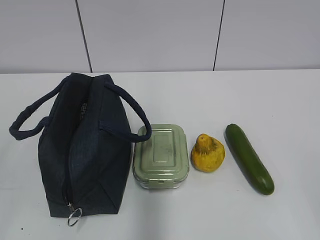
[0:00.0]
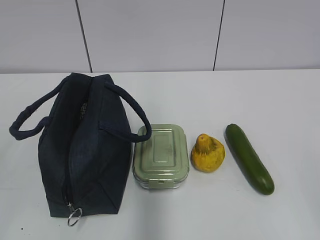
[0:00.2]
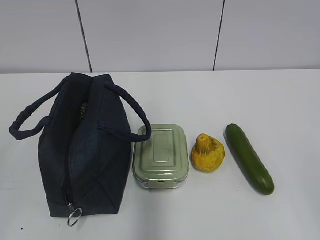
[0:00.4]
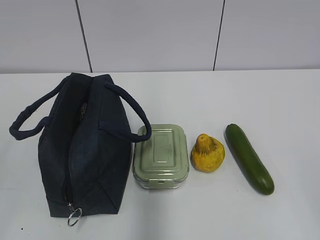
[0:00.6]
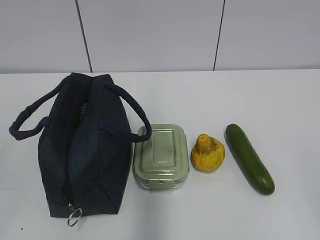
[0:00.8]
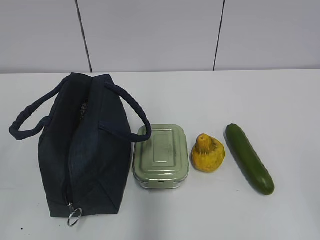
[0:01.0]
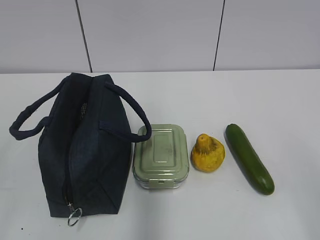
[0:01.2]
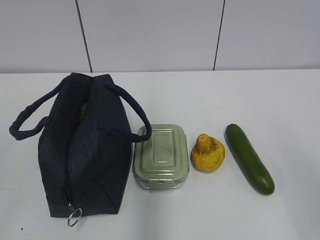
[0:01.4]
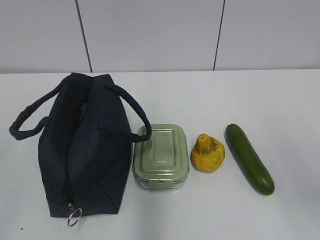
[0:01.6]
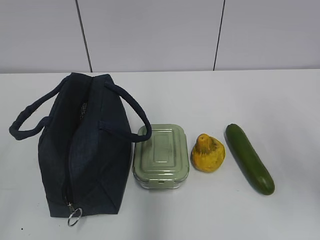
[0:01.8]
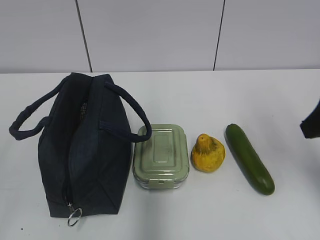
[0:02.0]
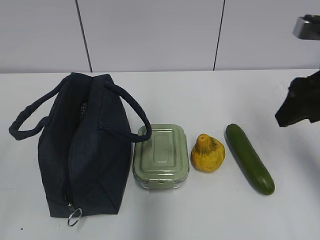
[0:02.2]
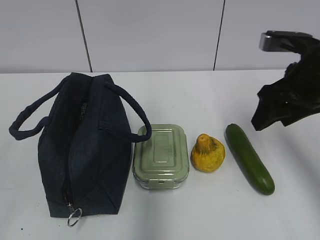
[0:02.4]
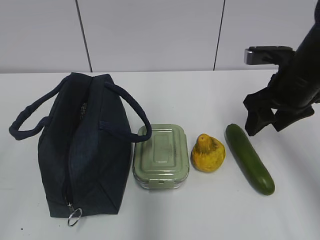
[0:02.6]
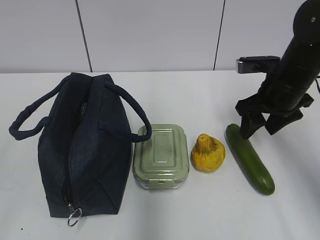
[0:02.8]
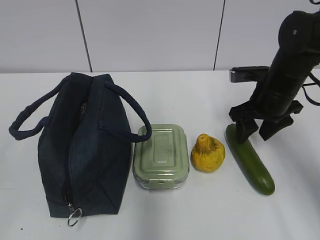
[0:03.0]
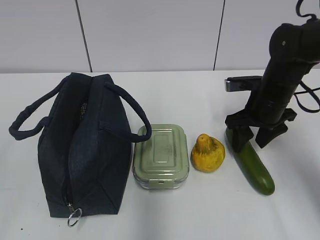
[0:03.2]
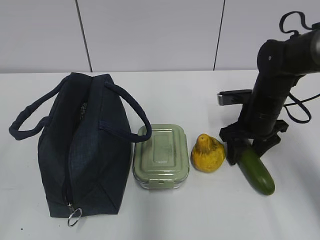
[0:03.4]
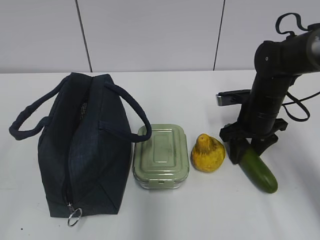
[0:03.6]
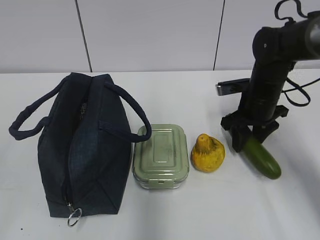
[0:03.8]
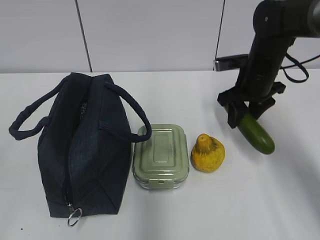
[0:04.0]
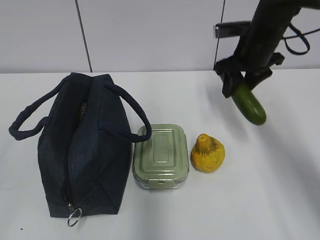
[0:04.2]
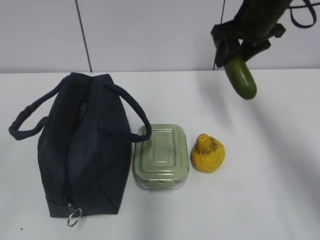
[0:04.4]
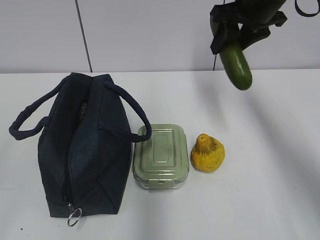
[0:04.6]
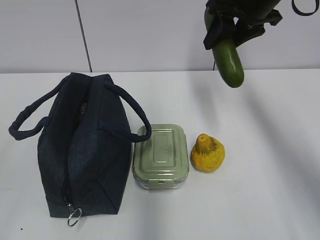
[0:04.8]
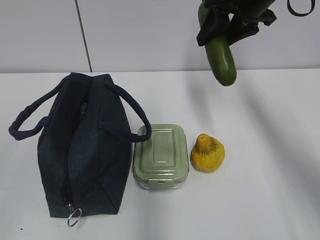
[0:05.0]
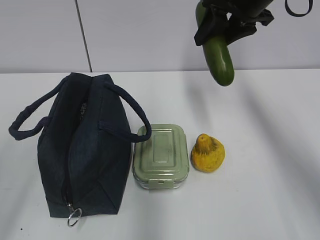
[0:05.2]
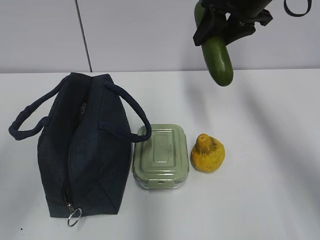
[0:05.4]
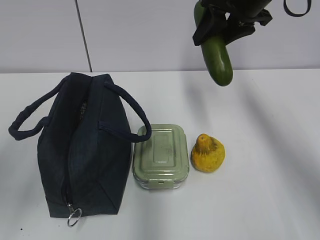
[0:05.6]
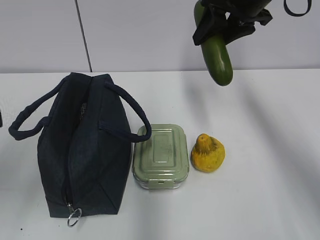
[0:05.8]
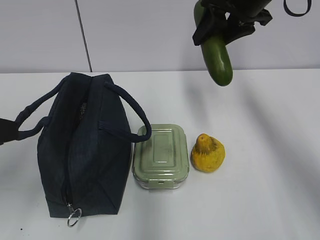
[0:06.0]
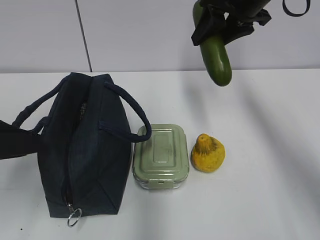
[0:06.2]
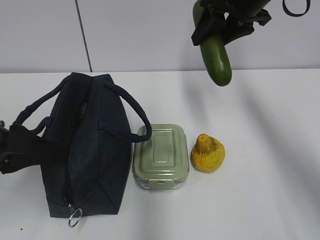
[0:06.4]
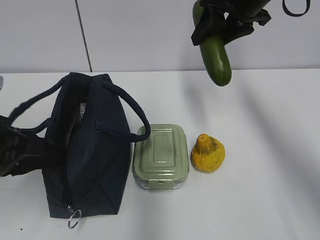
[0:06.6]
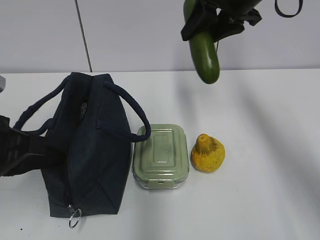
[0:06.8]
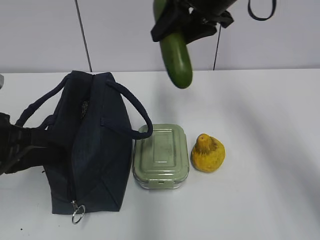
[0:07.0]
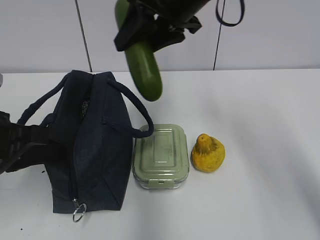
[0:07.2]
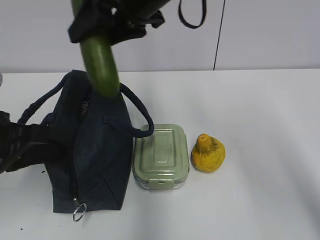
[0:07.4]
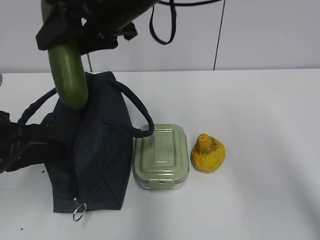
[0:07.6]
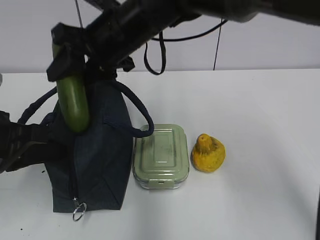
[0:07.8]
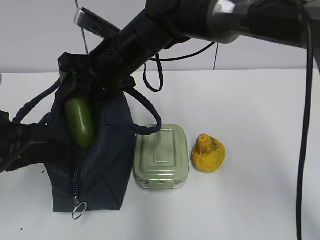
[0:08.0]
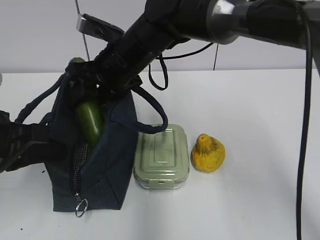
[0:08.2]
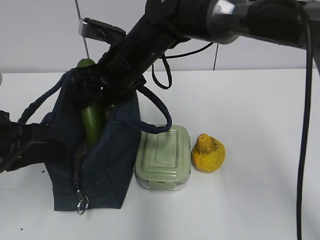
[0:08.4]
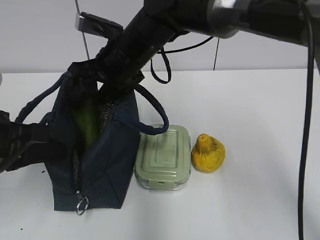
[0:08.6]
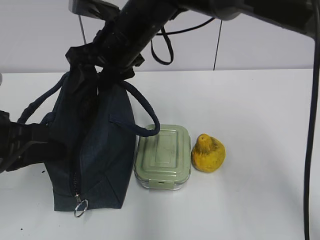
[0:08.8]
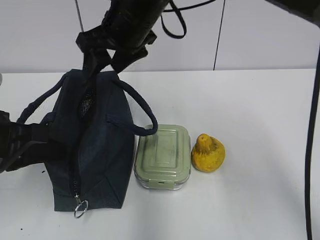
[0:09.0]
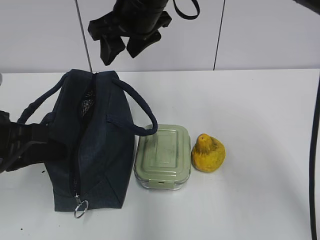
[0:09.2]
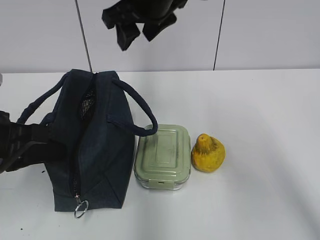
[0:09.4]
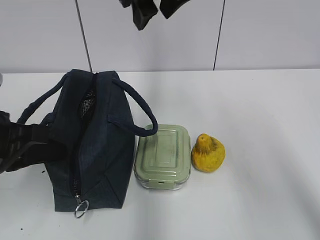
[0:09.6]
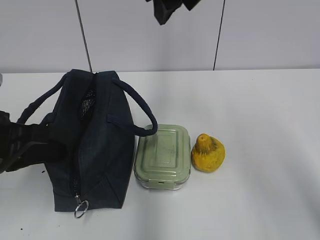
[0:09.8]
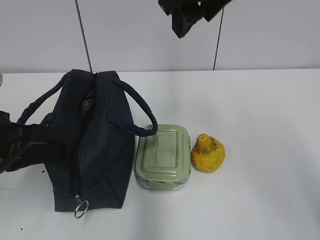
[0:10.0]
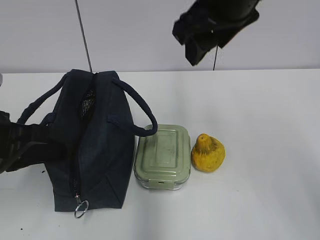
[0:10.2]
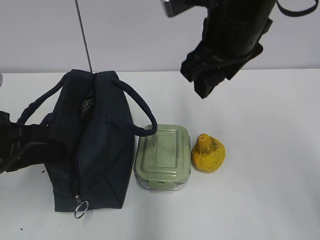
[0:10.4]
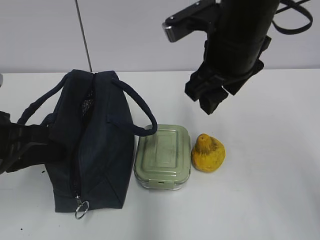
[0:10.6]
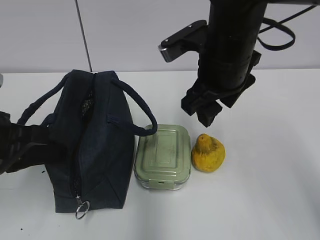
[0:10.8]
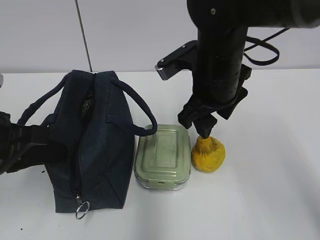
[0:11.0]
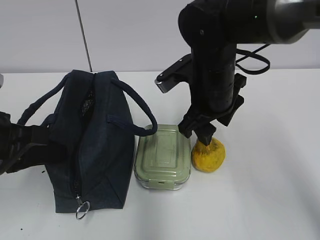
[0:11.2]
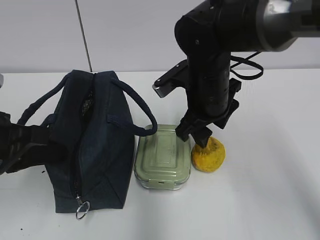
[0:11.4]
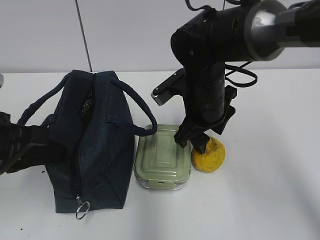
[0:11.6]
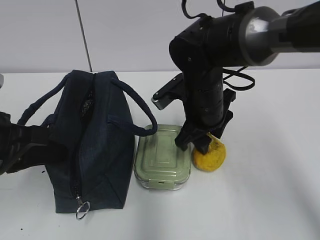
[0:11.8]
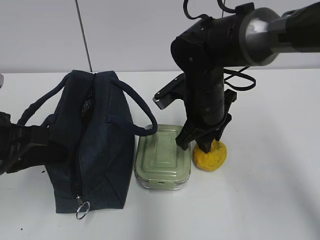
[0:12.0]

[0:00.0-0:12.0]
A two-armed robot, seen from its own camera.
Step, 0:00.0 to 0:03.4: Grab the cucumber with your right hand.
Step, 0:03.6 to 0:07.8: Grab the lunch bag with your left hand.
Step, 0:08.0 to 0:08.6: Place it into the bag with your right hand.
Step, 0:08.8 to 0:12.0: Grab the pear with your right hand.
0:01.6 to 0:03.0: The right gripper moves forward and downward, roughly 30 cm.
0:03.0 to 0:04.4: The right gripper moves upward and forward, approximately 15 cm.
0:04.4 to 0:06.0: The left gripper is displaced forward by about 15 cm.
0:06.0 to 0:07.6: The right gripper is displaced to the left by approximately 20 cm, while the left gripper ends up some 10 cm from where it was, and closes its fingers.
0:07.6 to 0:09.0: The right gripper moves approximately 10 cm downward and comes back.
0:09.0 to 0:10.4: The right gripper shifts approximately 15 cm to the right and backward.
0:10.4 to 0:12.0: The right gripper goes about 15 cm downward.

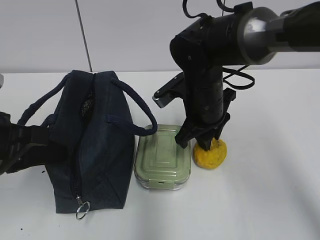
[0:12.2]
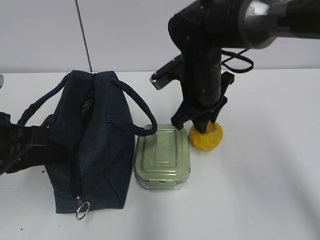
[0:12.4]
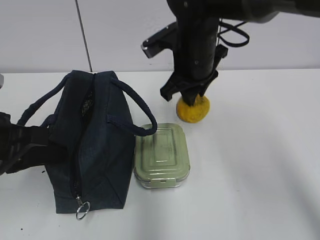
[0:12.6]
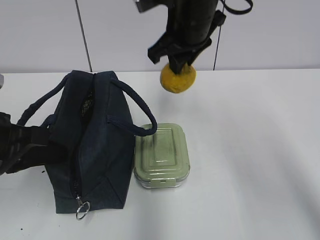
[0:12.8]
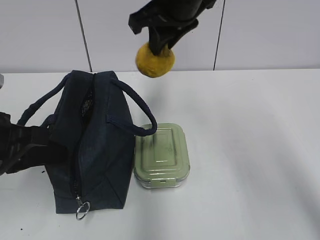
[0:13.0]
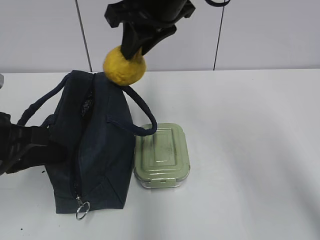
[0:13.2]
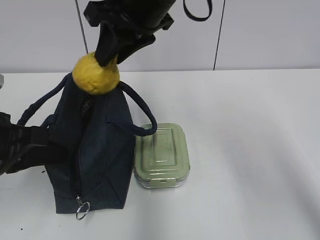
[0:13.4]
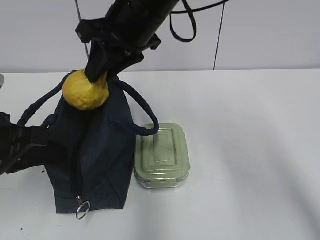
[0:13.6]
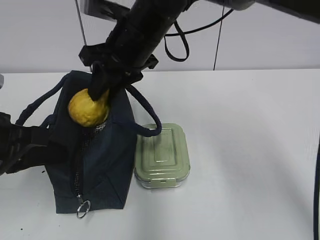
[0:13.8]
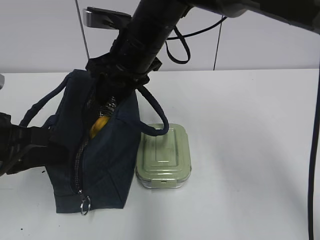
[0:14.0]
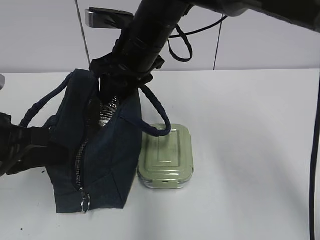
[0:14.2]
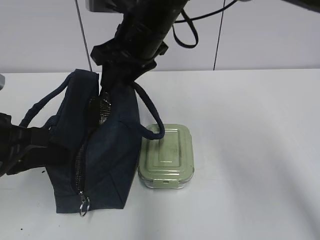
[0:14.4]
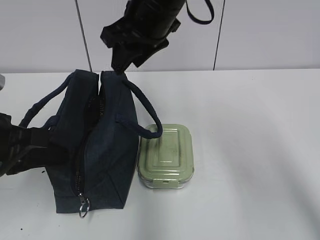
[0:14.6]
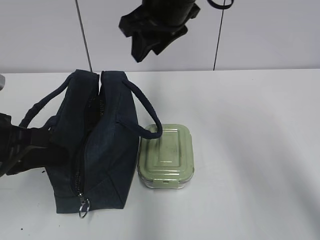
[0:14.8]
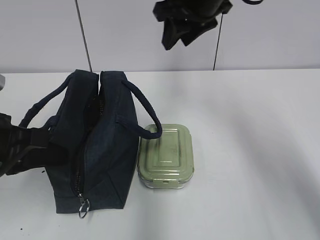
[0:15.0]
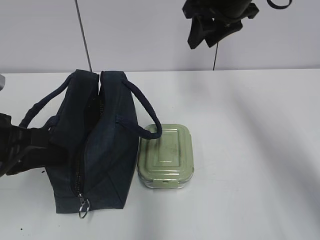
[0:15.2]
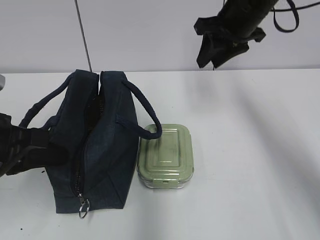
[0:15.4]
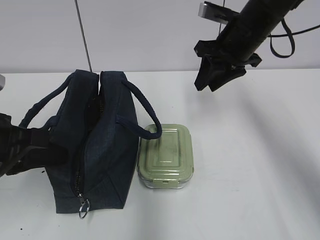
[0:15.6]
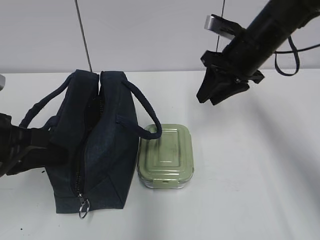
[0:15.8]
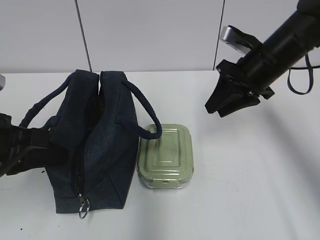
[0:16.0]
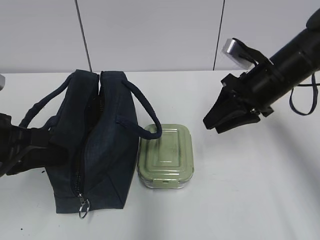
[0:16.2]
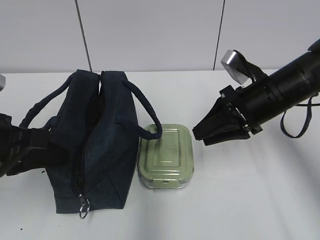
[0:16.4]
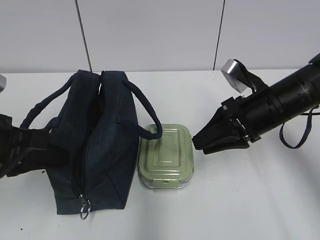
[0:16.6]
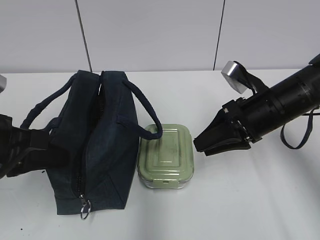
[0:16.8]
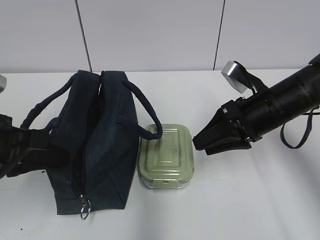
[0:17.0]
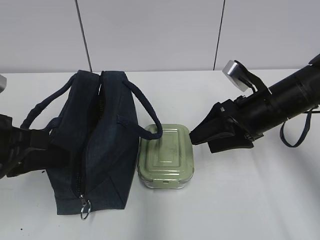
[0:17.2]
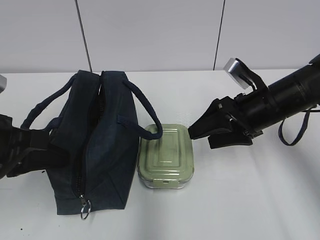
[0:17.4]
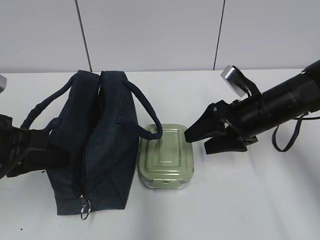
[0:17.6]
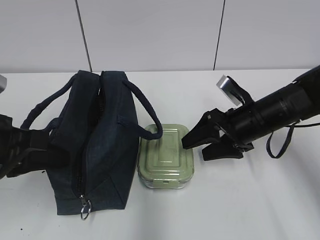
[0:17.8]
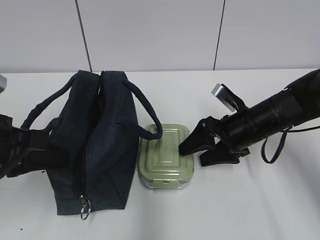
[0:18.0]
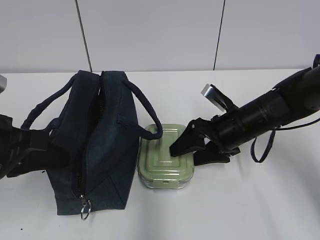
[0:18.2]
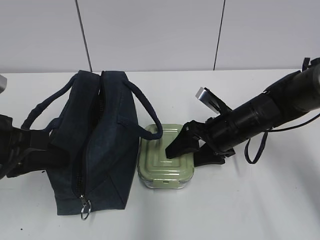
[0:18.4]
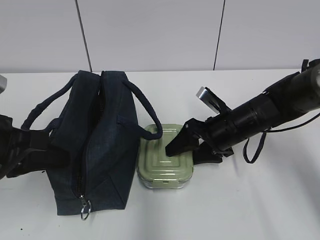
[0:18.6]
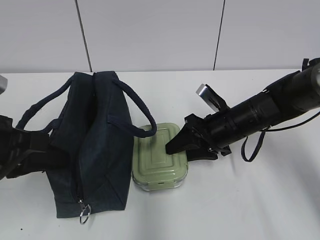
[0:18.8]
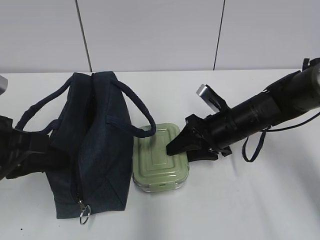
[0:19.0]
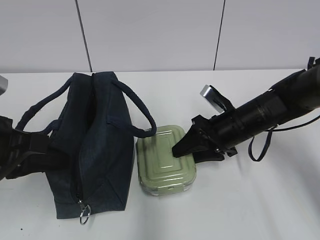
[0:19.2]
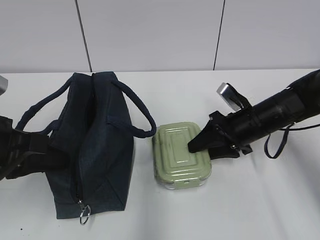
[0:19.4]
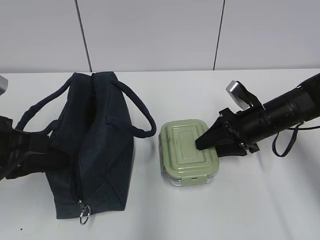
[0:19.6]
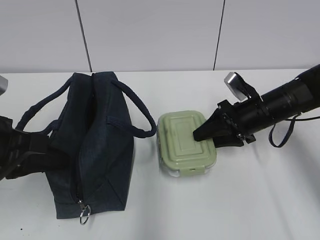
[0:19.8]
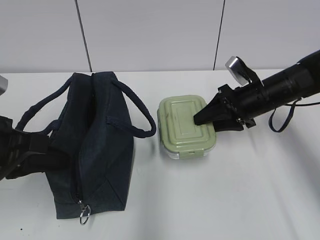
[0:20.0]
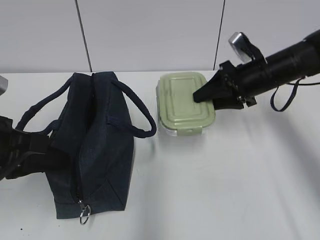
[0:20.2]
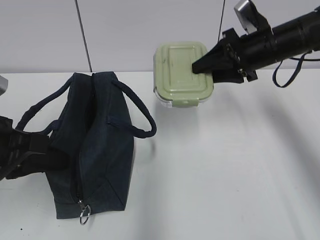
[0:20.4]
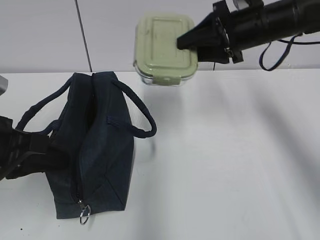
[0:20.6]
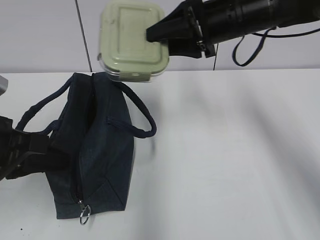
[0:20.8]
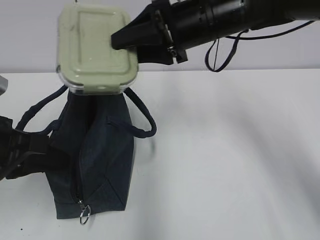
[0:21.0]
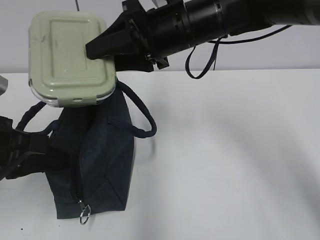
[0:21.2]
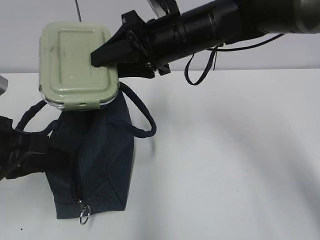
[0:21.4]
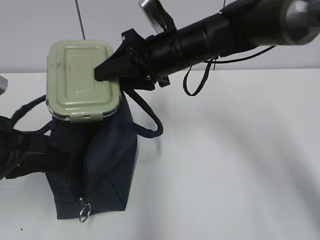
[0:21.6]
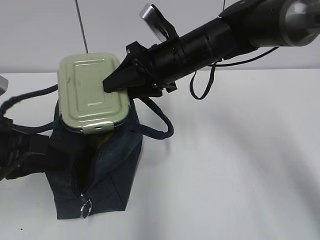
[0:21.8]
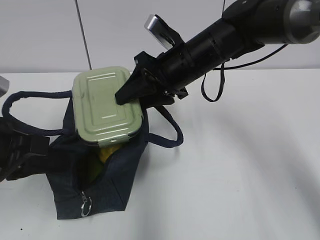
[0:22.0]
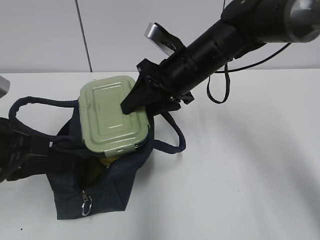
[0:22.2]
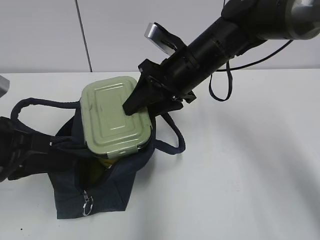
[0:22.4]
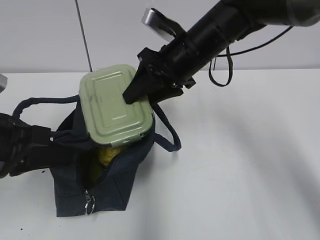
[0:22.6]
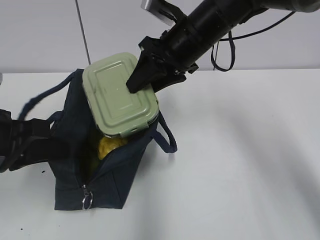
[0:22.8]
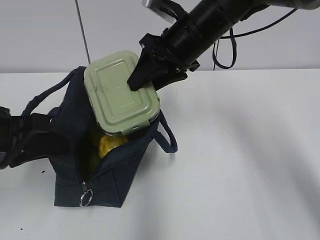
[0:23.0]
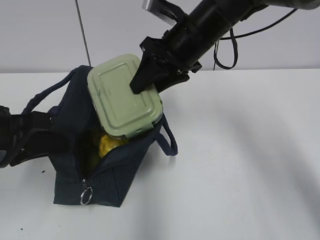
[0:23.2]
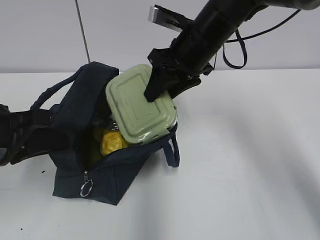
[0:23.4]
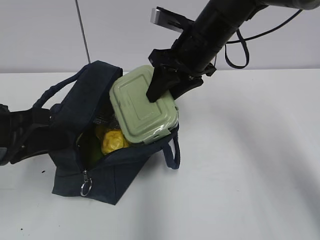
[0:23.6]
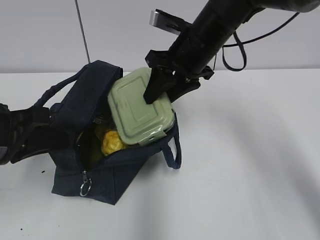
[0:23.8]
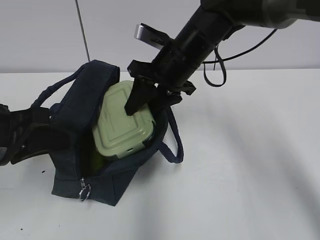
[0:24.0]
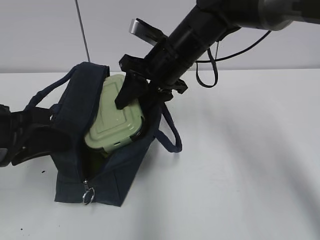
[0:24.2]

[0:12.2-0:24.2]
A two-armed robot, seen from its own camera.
Step, 0:12.2 to 0:14.0: Place it into the bag with your right hand.
Step, 0:14.2 to 0:18.8: Grab the lunch box with your right hand.
0:12.2 to 0:13.8: The right gripper moves upward and to the left, approximately 15 cm.
0:13.8 to 0:15.2: The right gripper heads to the right, covering about 15 cm.
0:15.2 to 0:16.6: The right gripper is displaced downward and backward by roughly 20 cm.
0:16.6 to 0:18.2: The right gripper heads downward, covering some 5 cm, and opens.
0:18.2 to 0:19.8: The right gripper goes some 5 cm to the right, and closes.
0:19.8 to 0:21.2: The right gripper heads upward and to the left, covering some 25 cm.
0:22.6 to 0:24.2: There are only small adjustments of the grippers.
